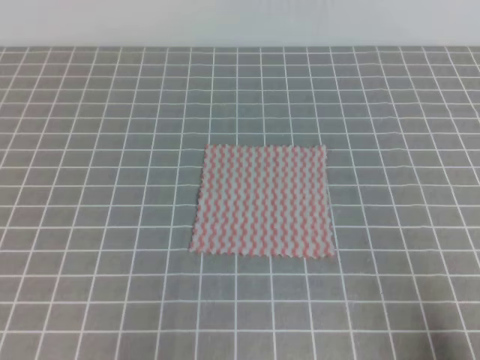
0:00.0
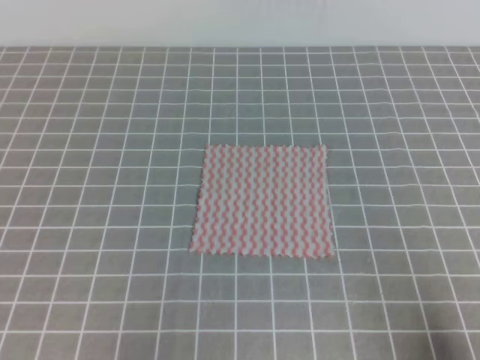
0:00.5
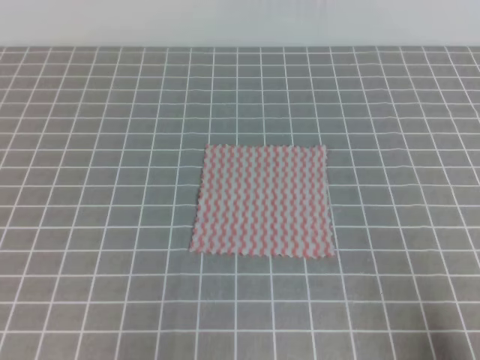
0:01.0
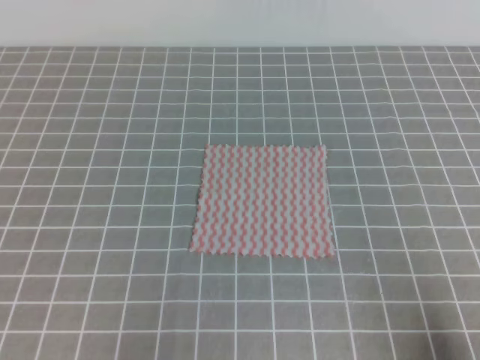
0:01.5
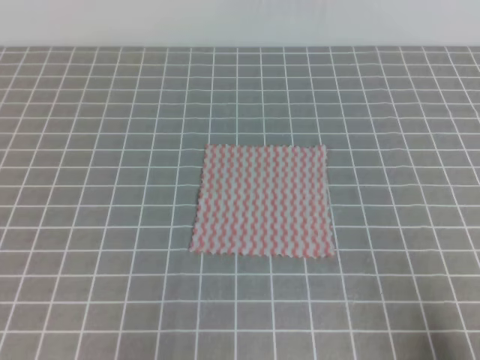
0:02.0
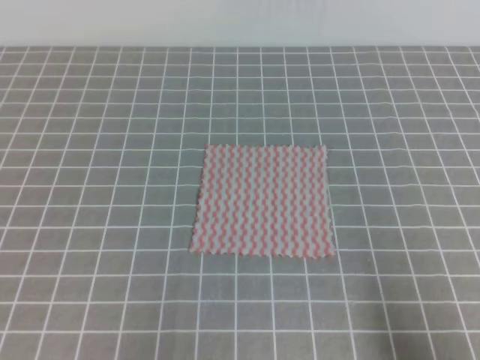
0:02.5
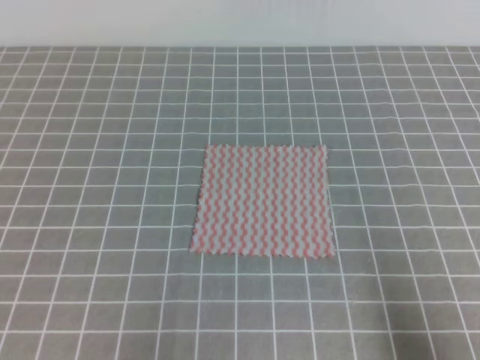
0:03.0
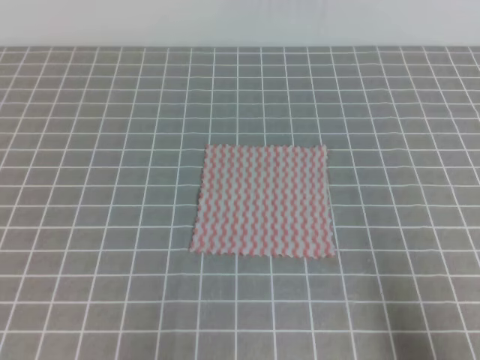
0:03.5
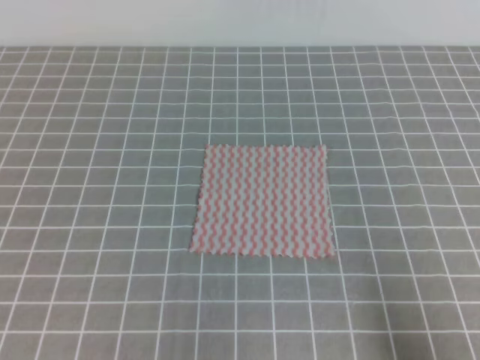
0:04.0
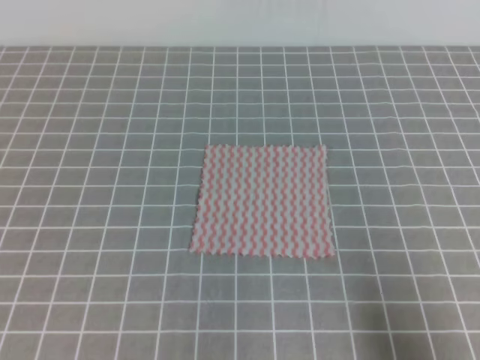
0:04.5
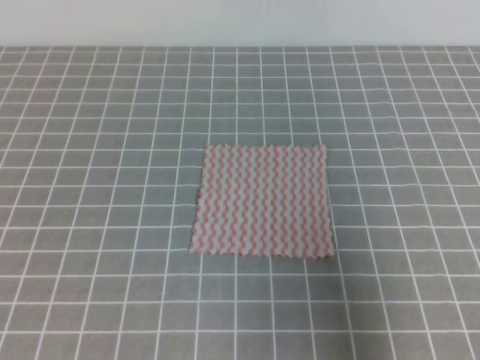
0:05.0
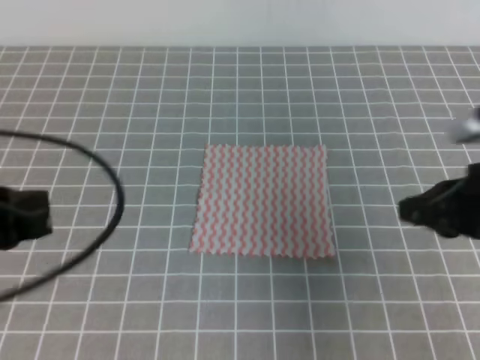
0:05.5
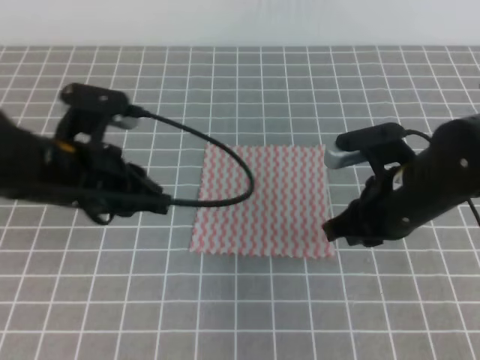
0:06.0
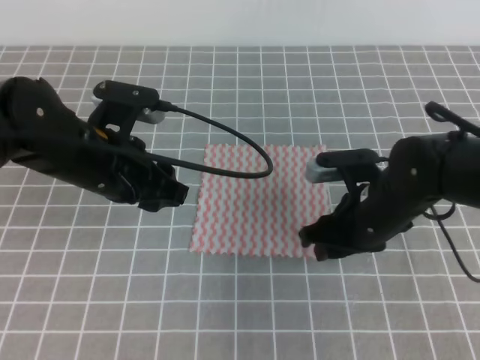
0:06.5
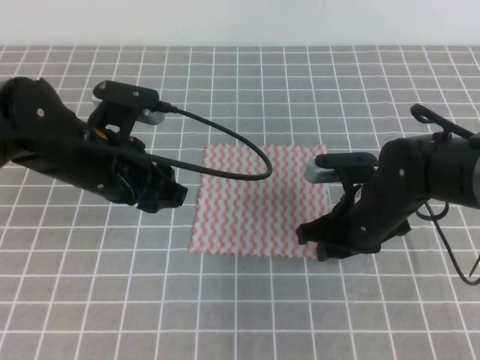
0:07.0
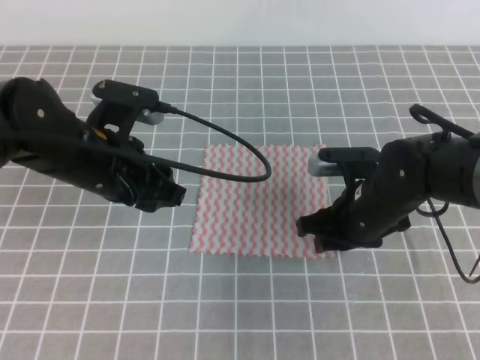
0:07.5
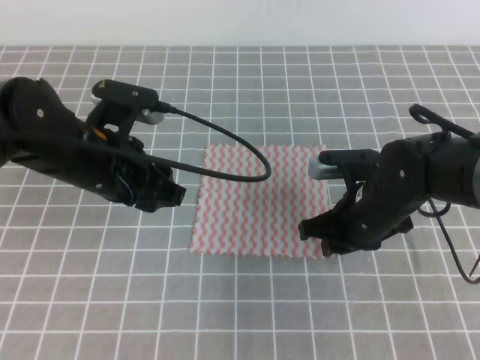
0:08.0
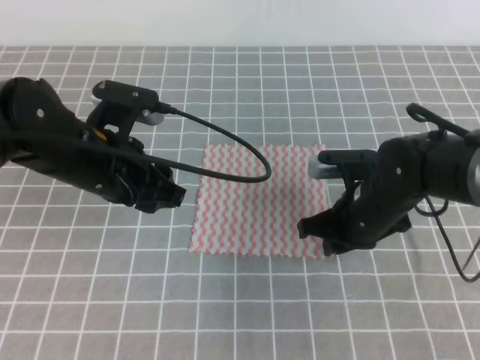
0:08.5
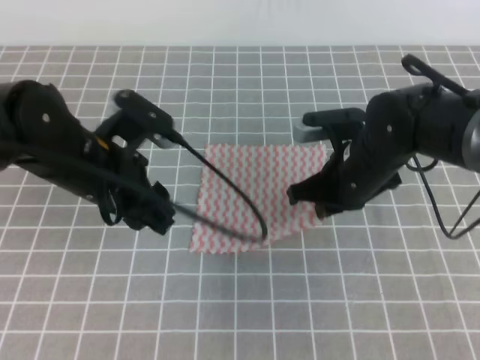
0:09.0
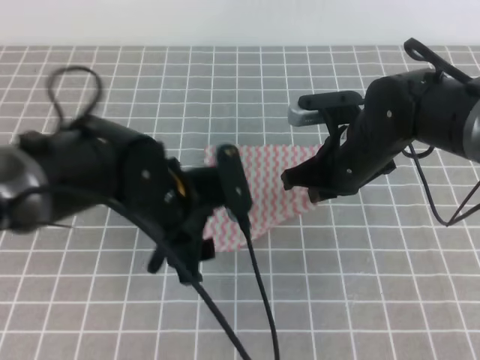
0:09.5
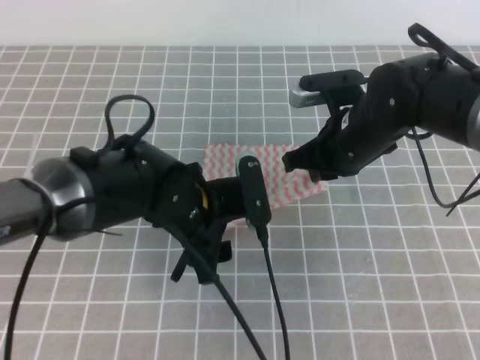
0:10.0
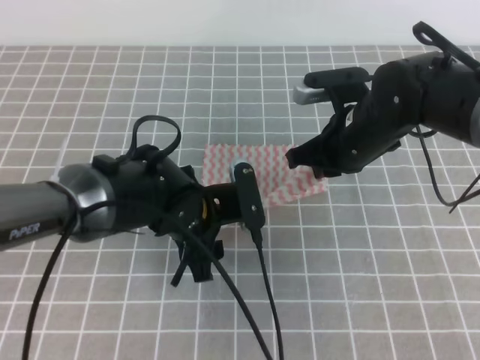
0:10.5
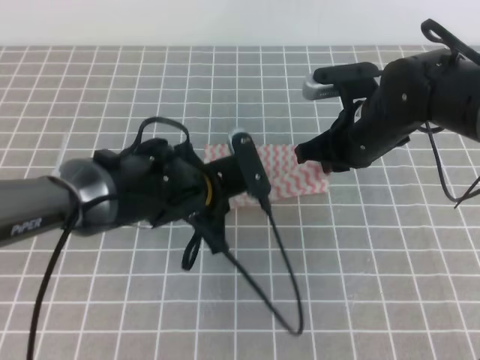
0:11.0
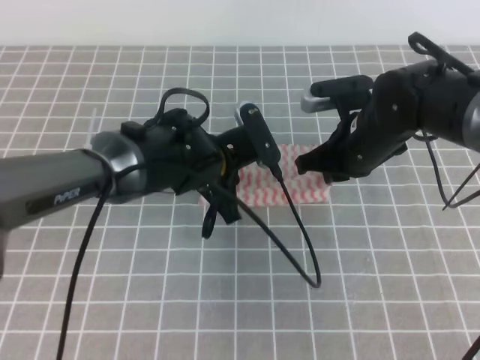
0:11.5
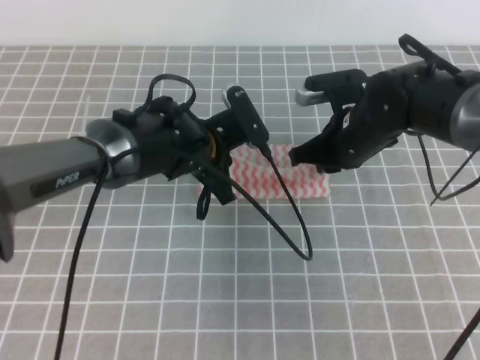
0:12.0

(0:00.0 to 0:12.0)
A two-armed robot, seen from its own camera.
Step, 0:00.0 - 0:09.5: Fold the towel upwards with the right gripper.
0:04.0 - 0:06.0: The right gripper shifts roughly 25 cm forward and to the left. The left gripper heads forward, to the right and upward, covering approximately 25 cm.
0:06.0 - 0:08.0: The right gripper is displaced downward by approximately 5 cm. The left gripper opens its fingers.
0:08.0 - 0:10.0: The right gripper heads upward, covering approximately 5 cm, and closes its fingers. Meanwhile the left gripper is displaced to the right and downward by about 10 cm.
0:10.0 - 0:12.0: The left gripper goes some 10 cm forward, and closes.

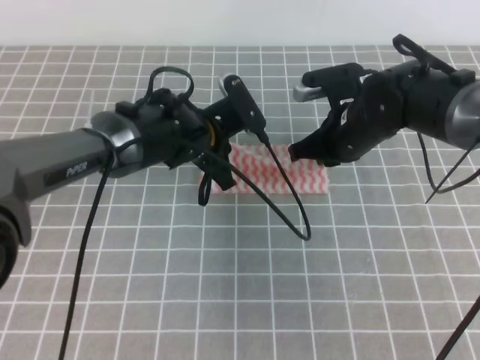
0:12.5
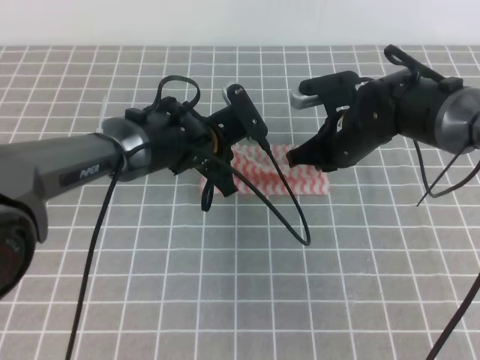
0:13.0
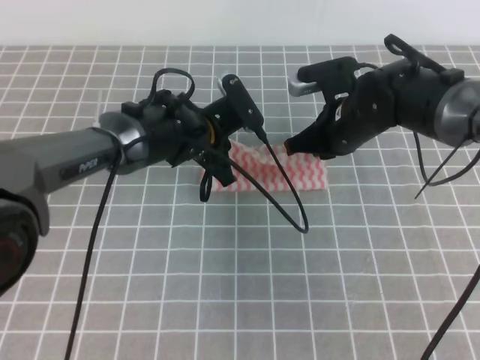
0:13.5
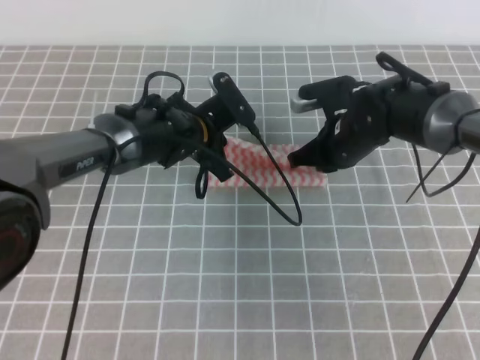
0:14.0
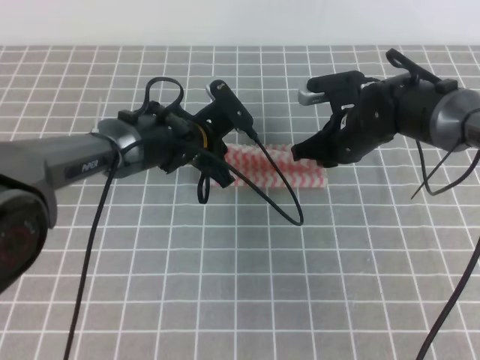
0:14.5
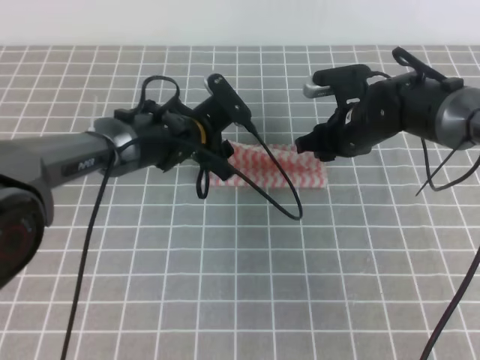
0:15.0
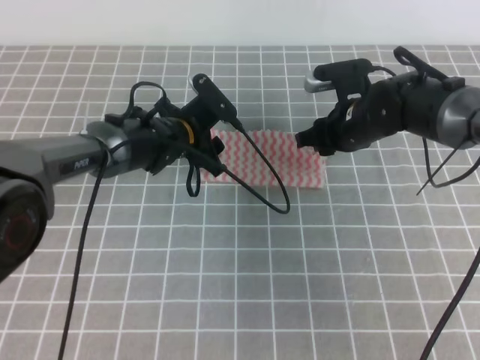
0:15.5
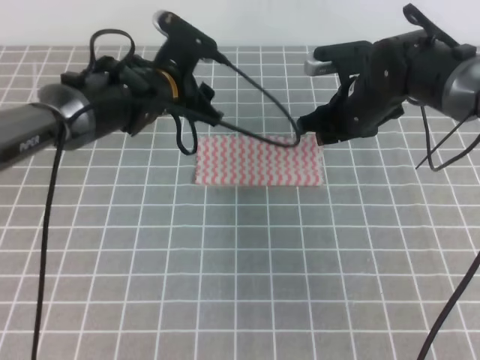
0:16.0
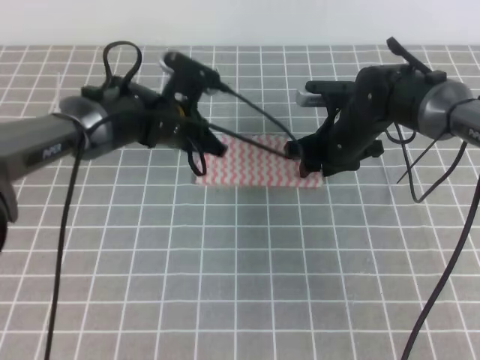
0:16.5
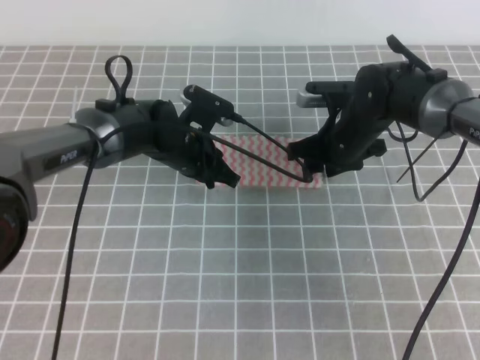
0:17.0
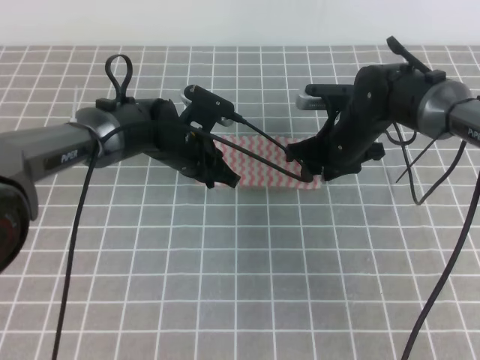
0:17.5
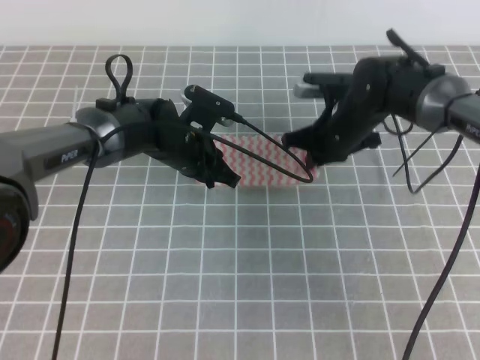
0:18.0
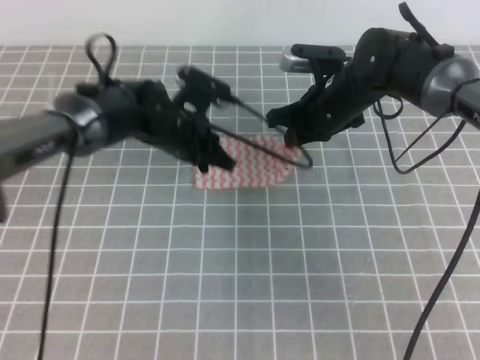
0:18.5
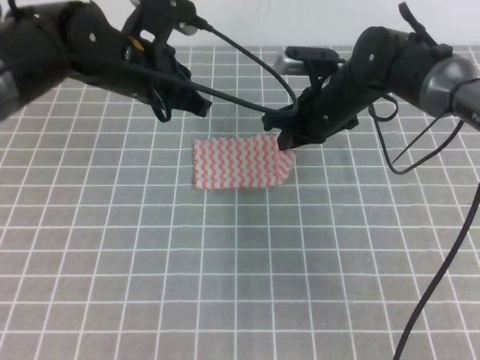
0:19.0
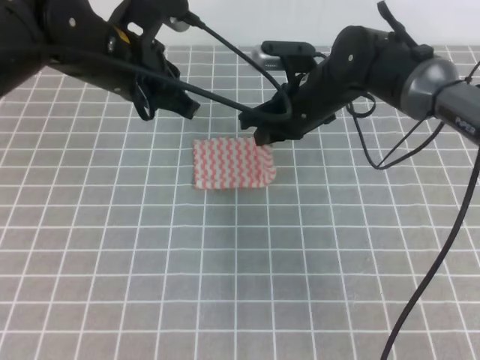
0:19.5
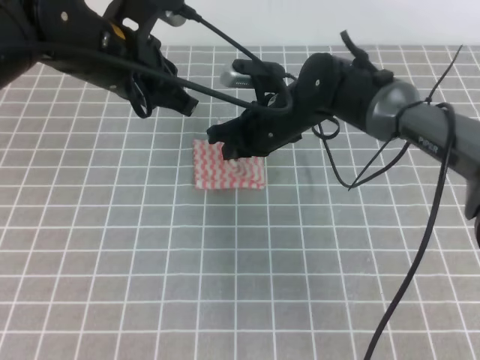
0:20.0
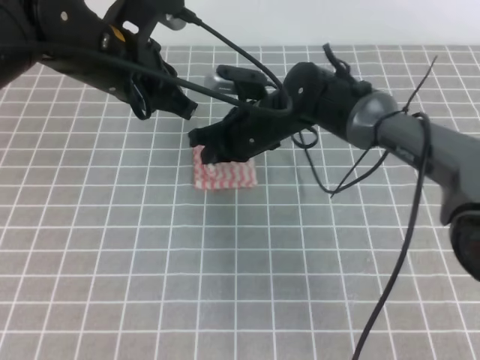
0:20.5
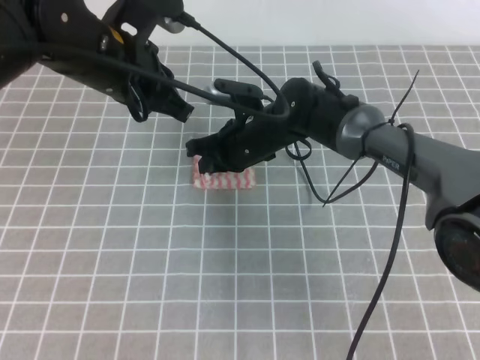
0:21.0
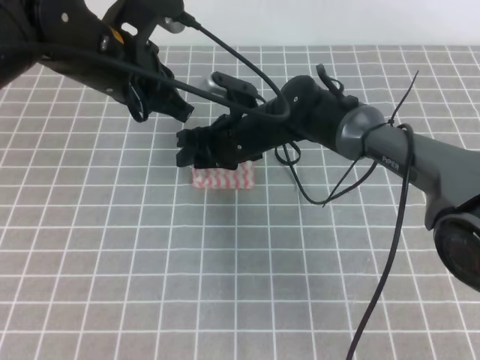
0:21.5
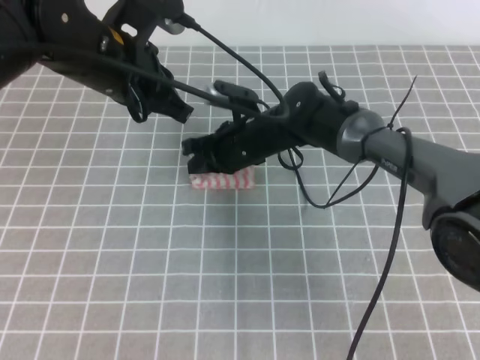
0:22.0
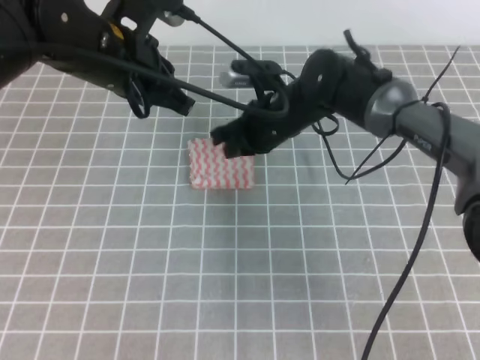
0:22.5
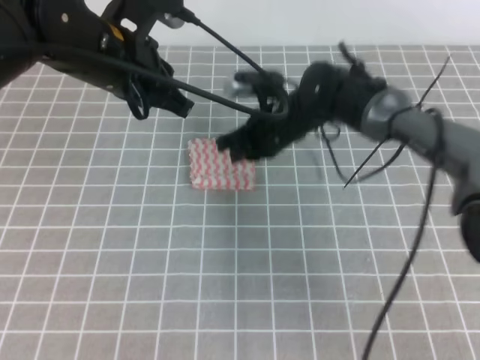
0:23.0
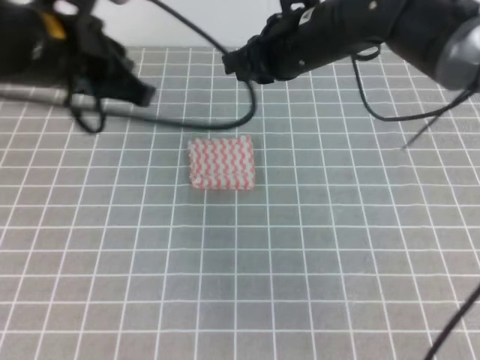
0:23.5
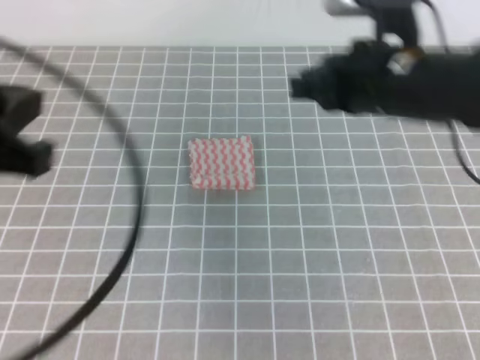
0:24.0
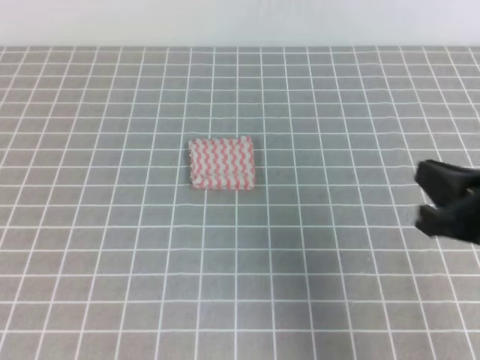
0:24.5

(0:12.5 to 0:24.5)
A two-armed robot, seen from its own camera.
0:12.5 - 0:14.5: The right gripper opens up.
0:14.5 - 0:16.5: The left gripper opens and closes again. Meanwhile the right gripper opens.
0:16.5 - 0:18.5: The right gripper closes its fingers.
0:18.5 - 0:20.5: The right gripper travels to the left by some 10 cm, while the left gripper heads upward and backward, covering some 15 cm.
0:20.5 - 0:22.5: The right gripper opens and closes again.
0:22.5 - 0:24.5: The right gripper heads backward and to the right, covering some 30 cm. Meanwhile the left gripper shifts roughly 35 cm backward and to the left.

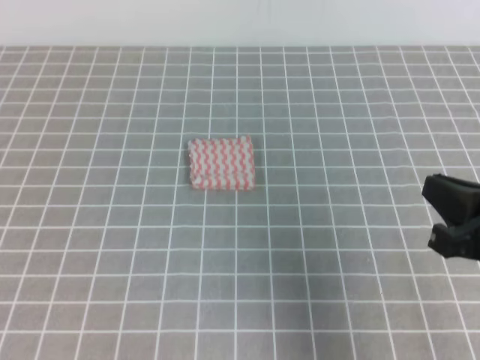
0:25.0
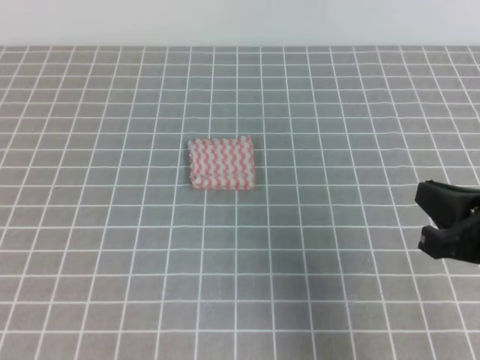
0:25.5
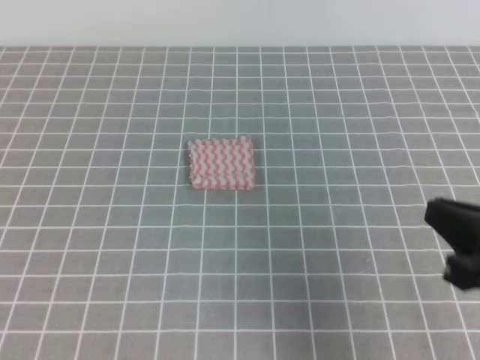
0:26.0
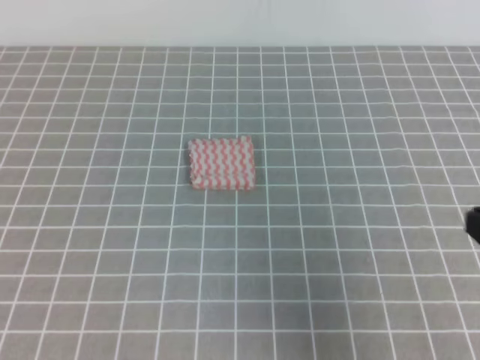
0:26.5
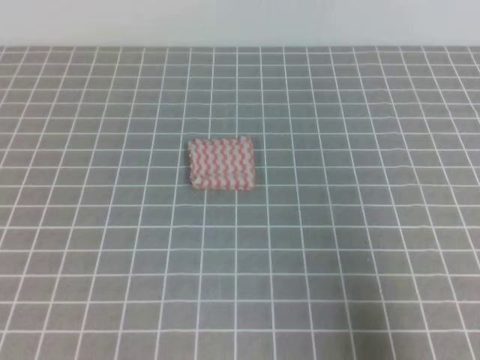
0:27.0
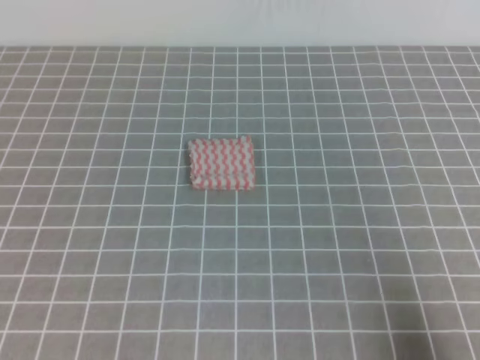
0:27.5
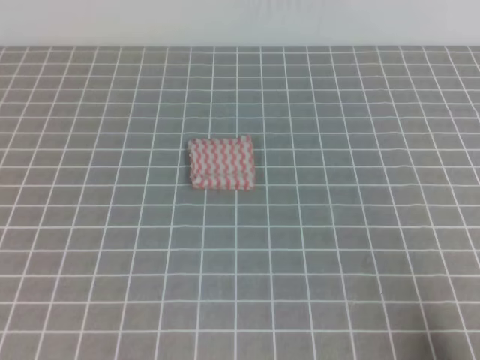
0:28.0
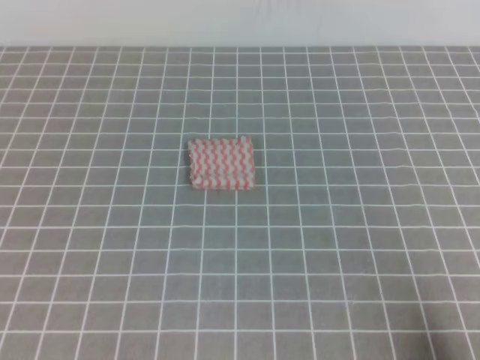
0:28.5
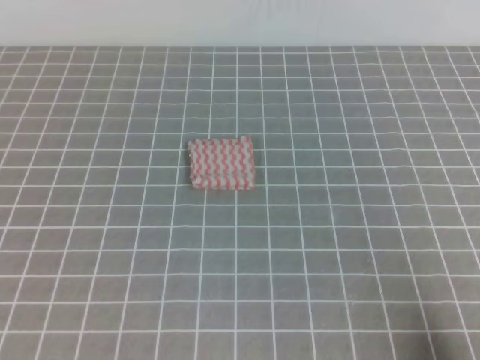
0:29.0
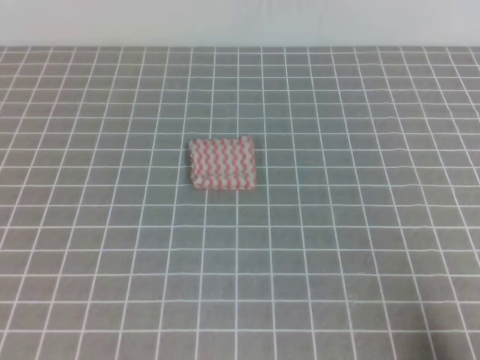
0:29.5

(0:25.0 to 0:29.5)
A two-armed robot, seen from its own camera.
0:25.0 - 0:27.0: The right gripper goes roughly 15 cm backward and to the right.
0:27.0 - 0:29.5: The right gripper shifts about 10 cm downward.
